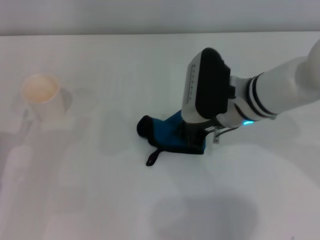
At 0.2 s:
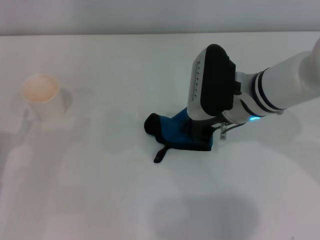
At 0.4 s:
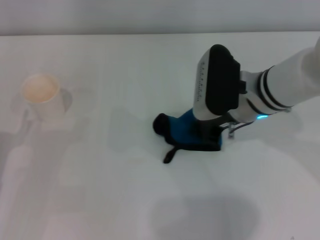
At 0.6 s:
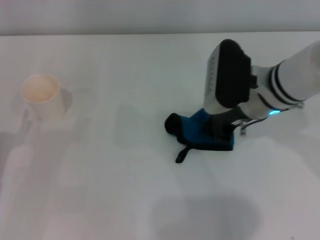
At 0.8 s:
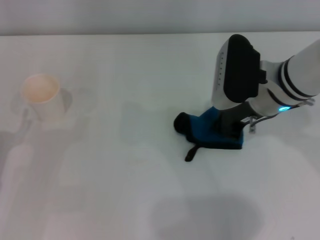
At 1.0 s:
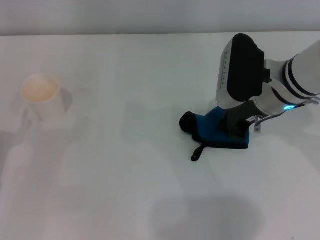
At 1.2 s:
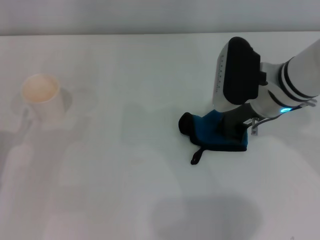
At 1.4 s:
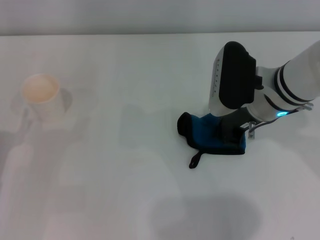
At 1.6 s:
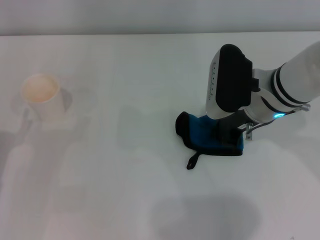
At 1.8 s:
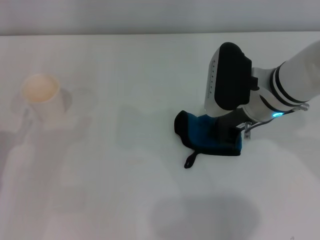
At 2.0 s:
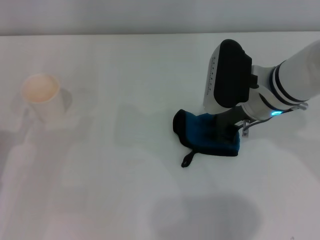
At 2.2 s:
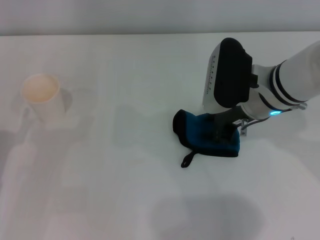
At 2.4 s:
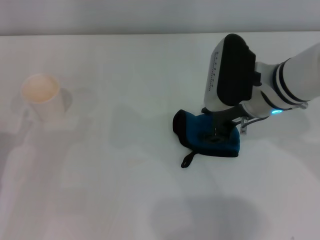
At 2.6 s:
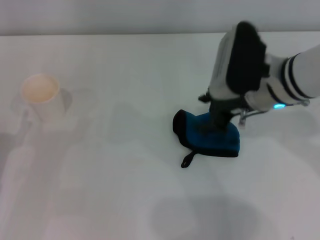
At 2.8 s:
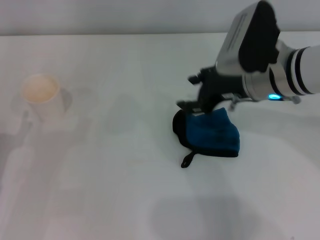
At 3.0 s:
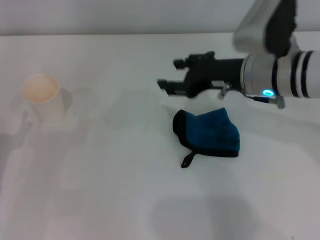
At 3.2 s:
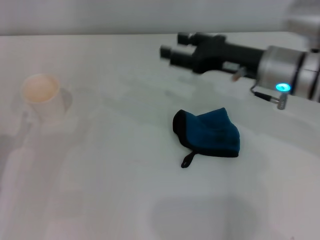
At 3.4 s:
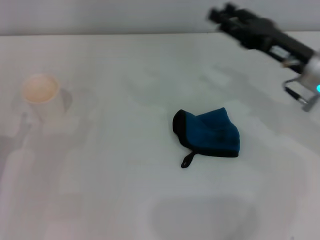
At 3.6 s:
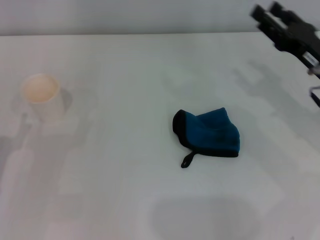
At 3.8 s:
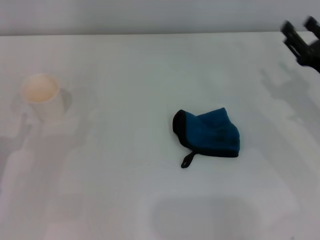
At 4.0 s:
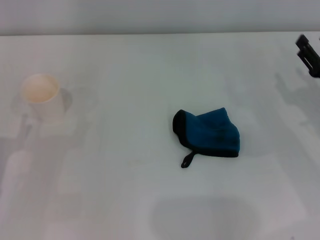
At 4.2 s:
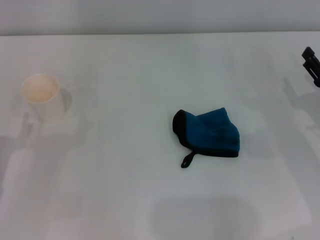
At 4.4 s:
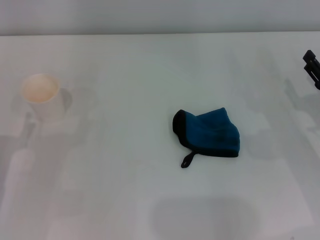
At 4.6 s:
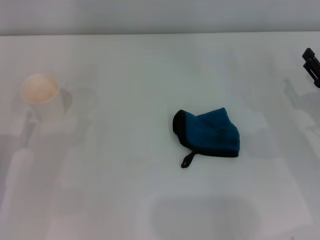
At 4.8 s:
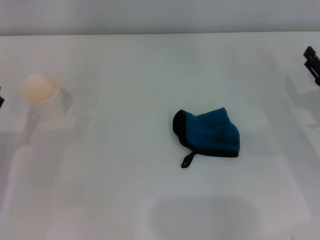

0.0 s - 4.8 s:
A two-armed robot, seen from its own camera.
Step, 0.6 s - 2.6 s: Place the rag on the table with the right gripper.
0.0 s - 1.6 s: There are only small adjustments of the grippers.
1.6 s - 3.2 s: The right gripper opens its fingers.
3.2 s - 4.8 s: The right gripper shifts about 20 cm to the right, downward and backward.
